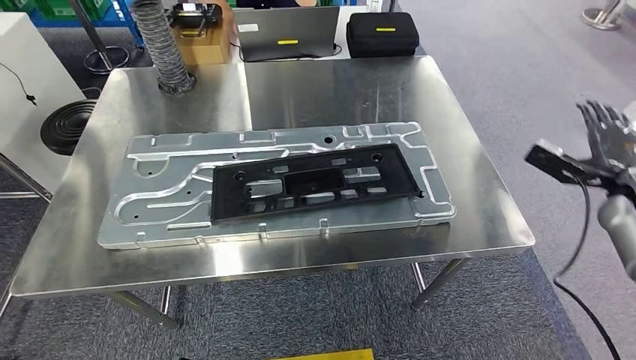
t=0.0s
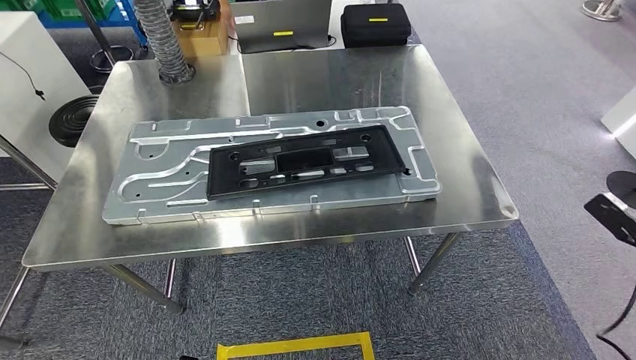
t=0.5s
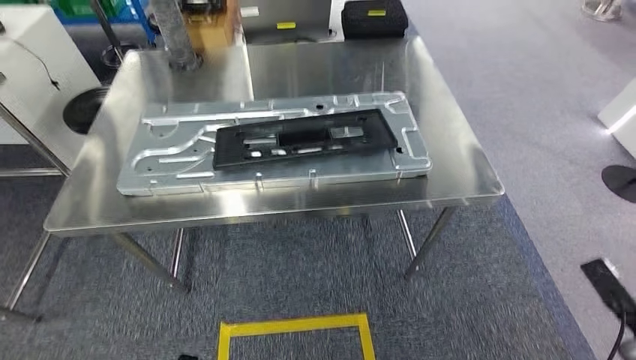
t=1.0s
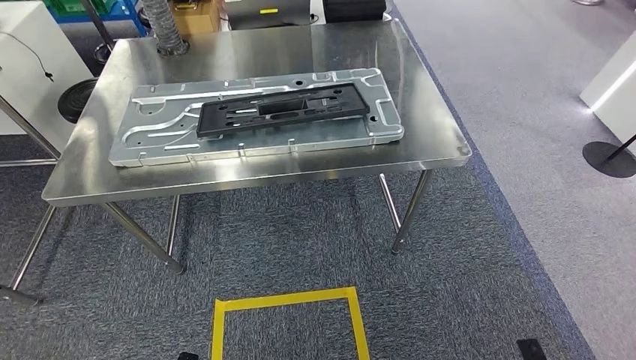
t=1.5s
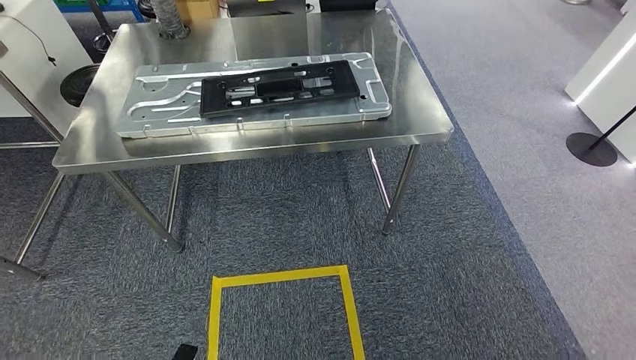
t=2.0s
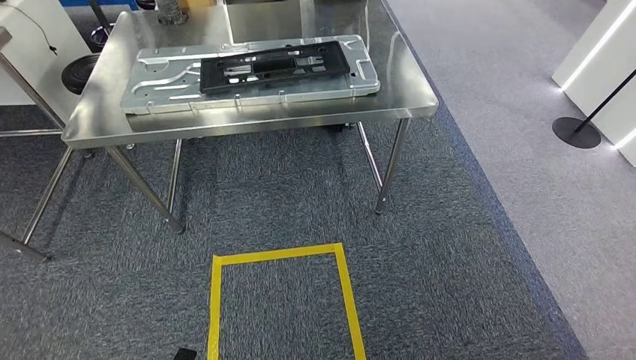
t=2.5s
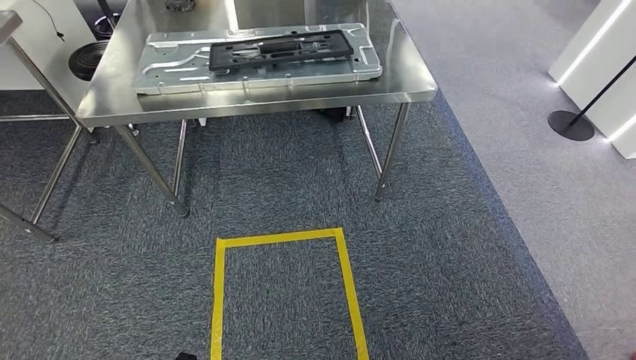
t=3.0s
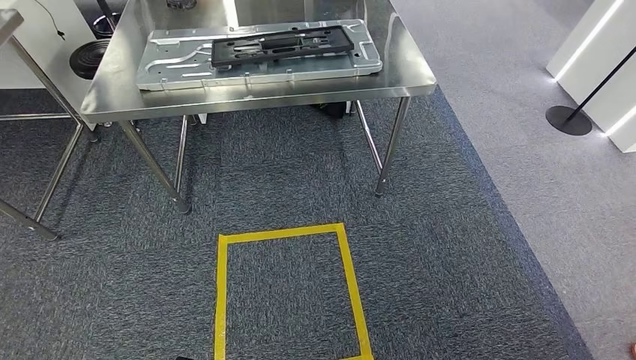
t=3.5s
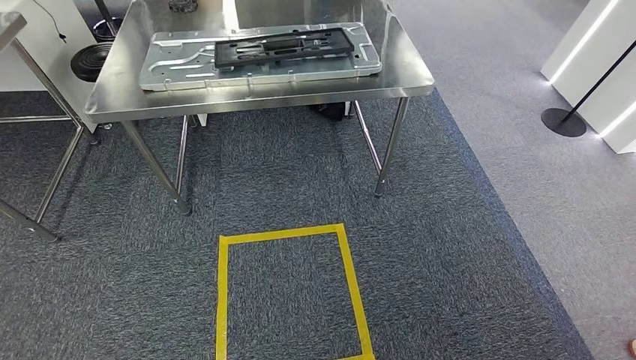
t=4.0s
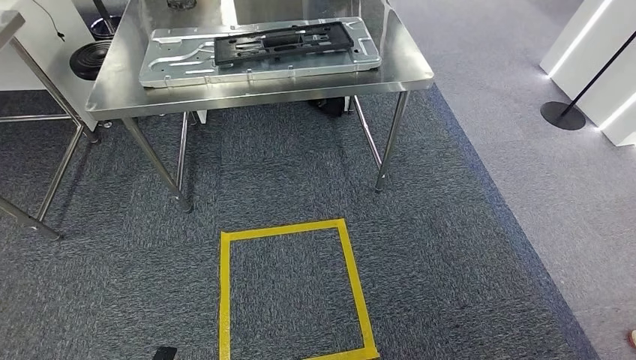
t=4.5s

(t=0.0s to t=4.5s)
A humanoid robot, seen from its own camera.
Step, t=0.0s - t=4.5s: Return to the initial position at the shelf.
